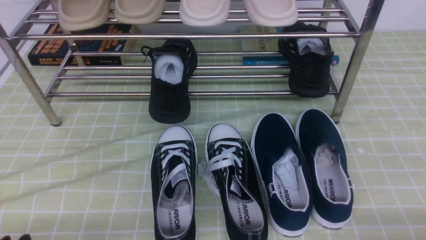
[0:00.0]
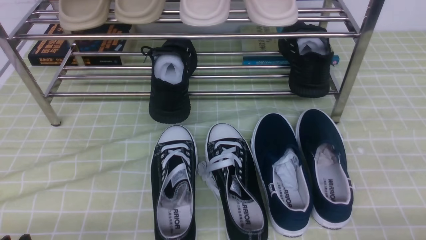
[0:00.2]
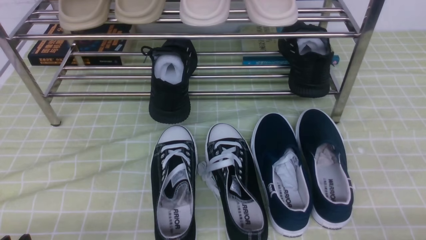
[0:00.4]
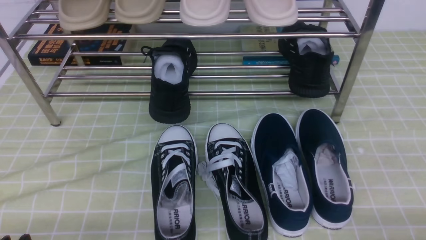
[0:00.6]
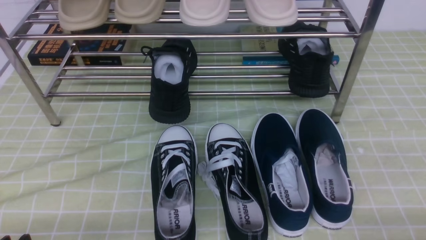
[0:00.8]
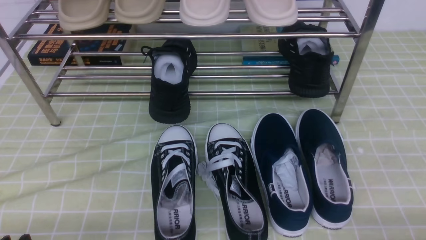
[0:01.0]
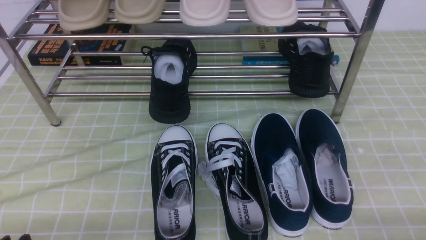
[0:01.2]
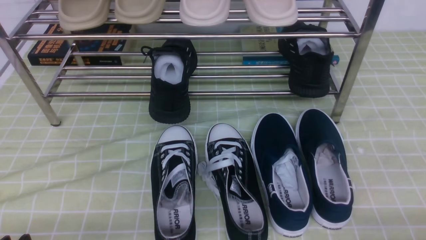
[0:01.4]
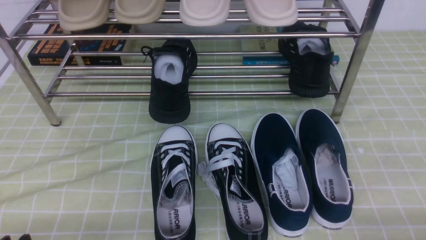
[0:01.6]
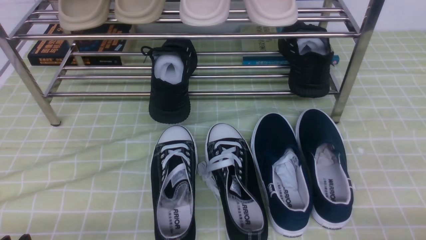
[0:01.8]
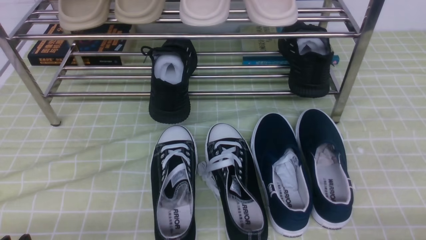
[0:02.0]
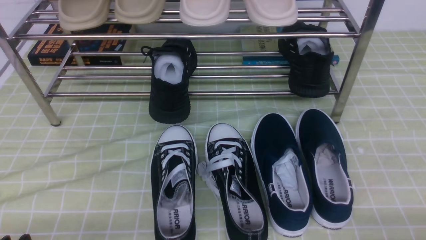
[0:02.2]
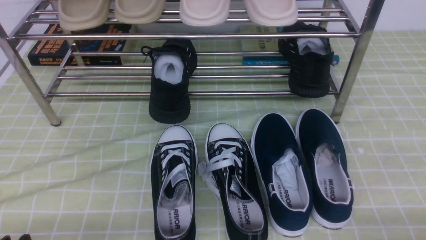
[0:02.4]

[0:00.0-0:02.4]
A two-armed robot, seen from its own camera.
0:00.0 to 0:02.4: The two grippers keep their place.

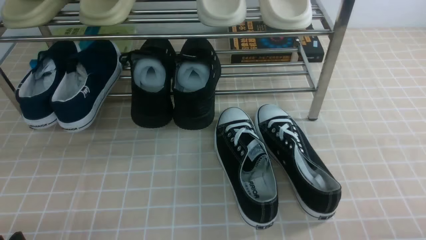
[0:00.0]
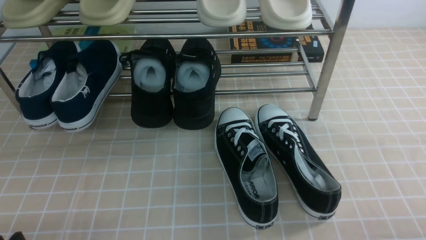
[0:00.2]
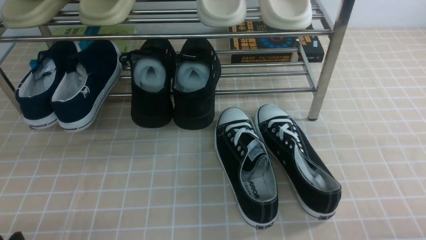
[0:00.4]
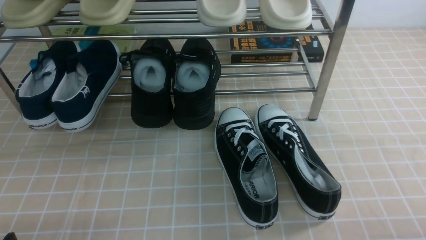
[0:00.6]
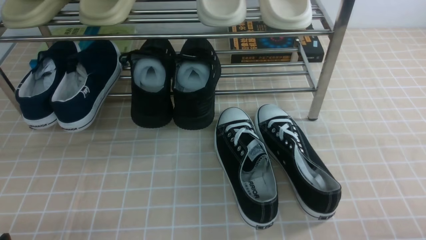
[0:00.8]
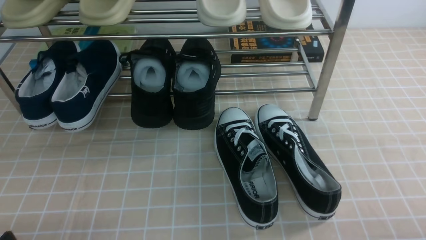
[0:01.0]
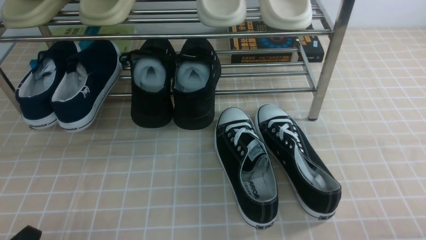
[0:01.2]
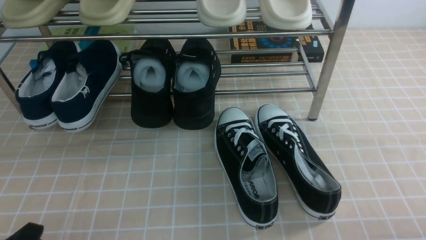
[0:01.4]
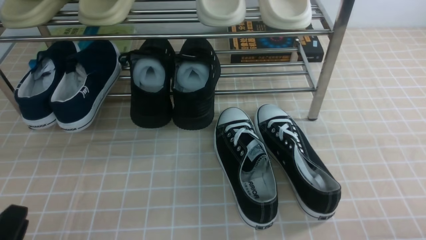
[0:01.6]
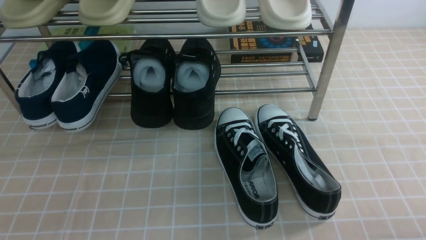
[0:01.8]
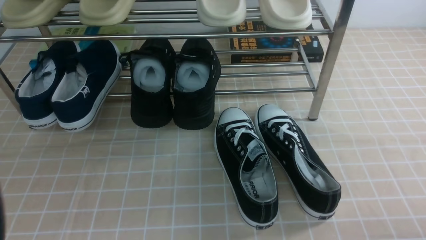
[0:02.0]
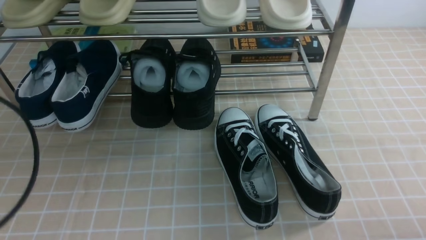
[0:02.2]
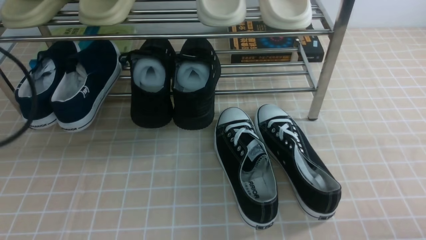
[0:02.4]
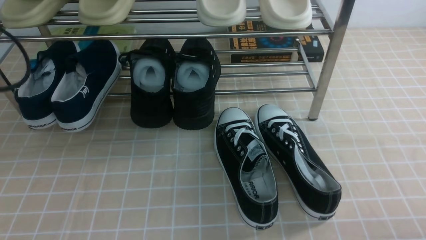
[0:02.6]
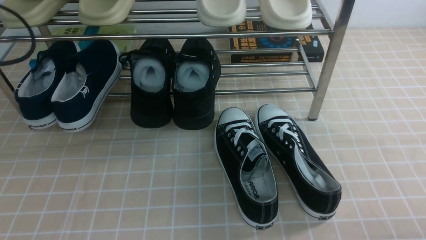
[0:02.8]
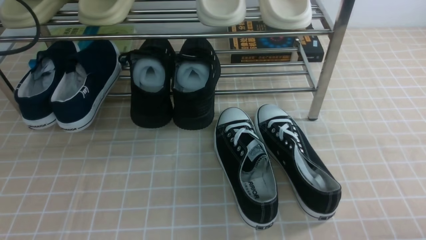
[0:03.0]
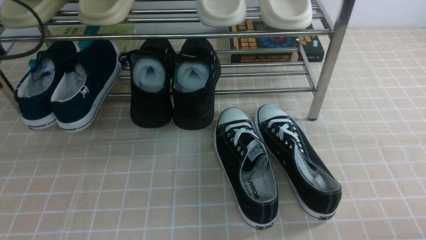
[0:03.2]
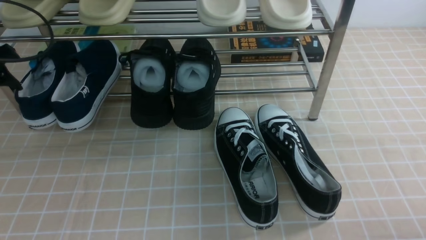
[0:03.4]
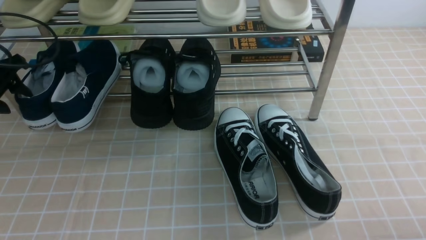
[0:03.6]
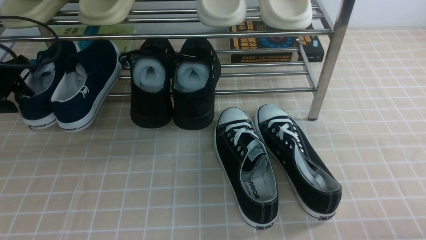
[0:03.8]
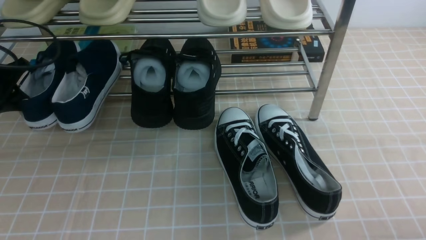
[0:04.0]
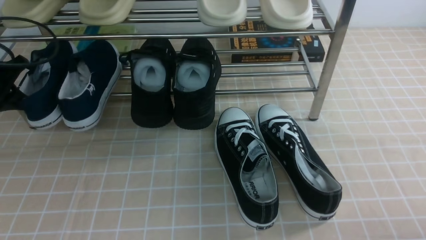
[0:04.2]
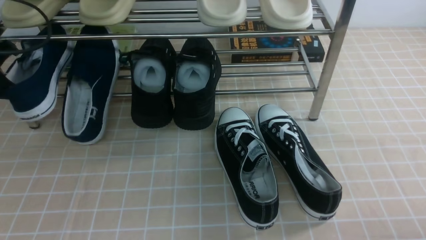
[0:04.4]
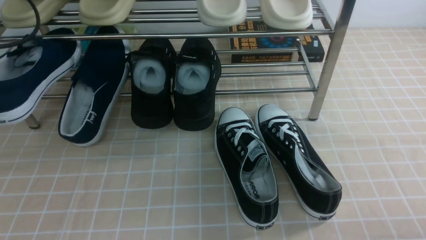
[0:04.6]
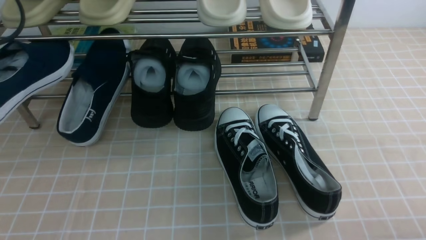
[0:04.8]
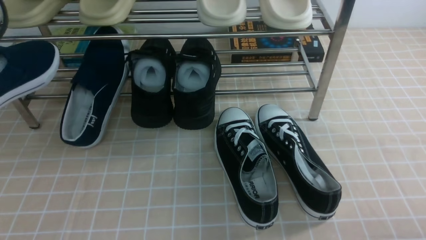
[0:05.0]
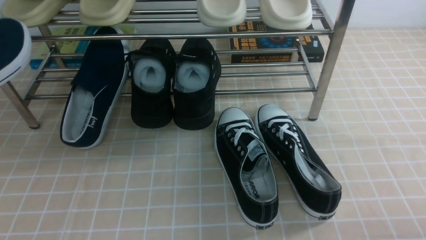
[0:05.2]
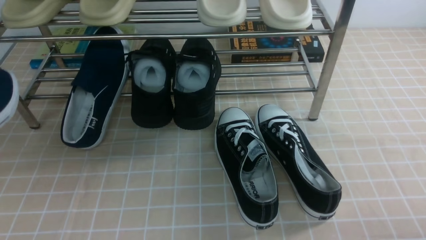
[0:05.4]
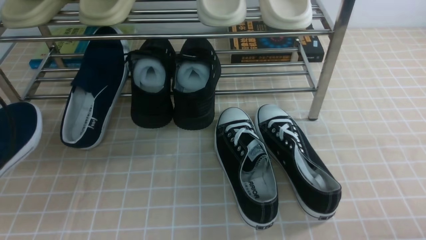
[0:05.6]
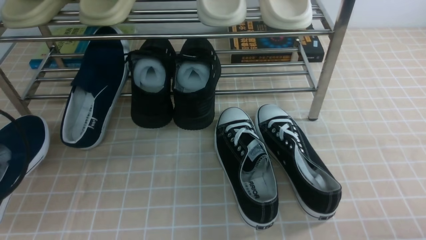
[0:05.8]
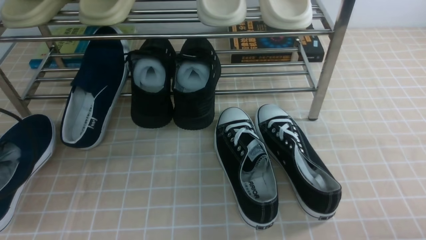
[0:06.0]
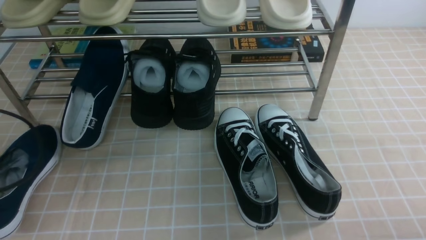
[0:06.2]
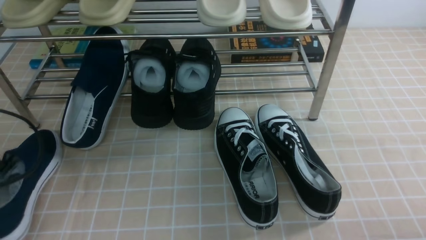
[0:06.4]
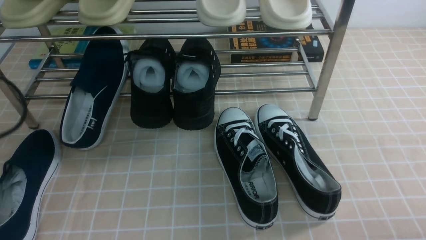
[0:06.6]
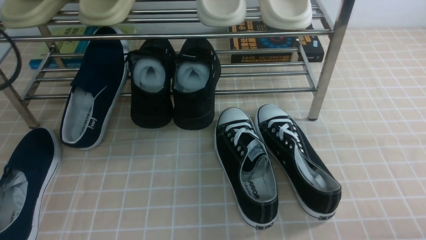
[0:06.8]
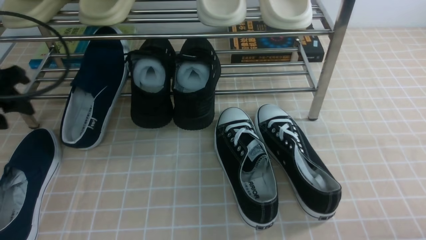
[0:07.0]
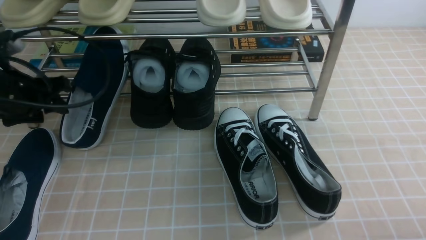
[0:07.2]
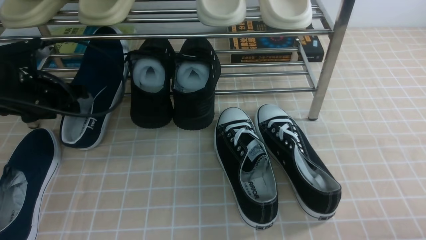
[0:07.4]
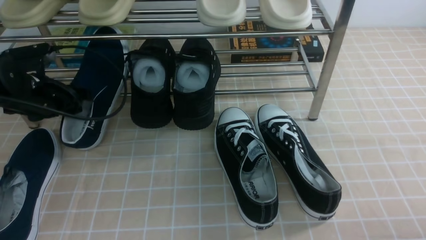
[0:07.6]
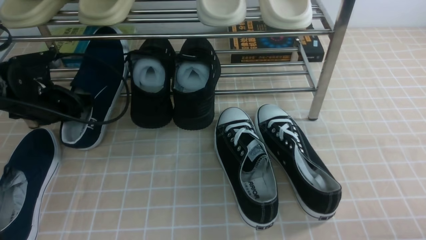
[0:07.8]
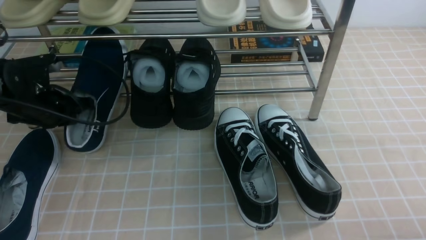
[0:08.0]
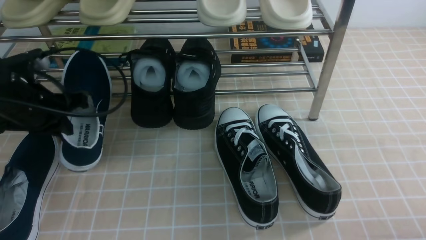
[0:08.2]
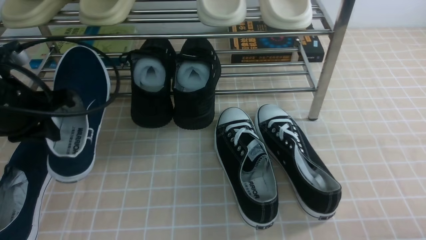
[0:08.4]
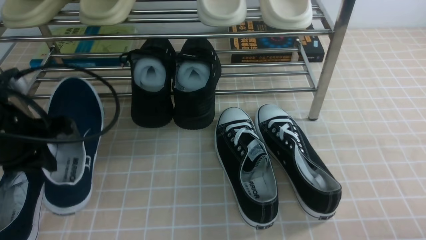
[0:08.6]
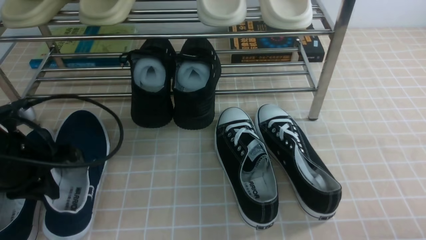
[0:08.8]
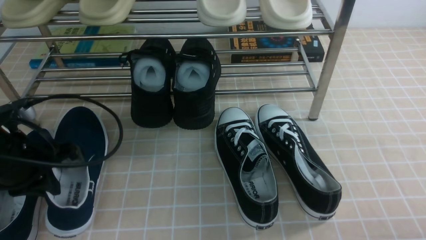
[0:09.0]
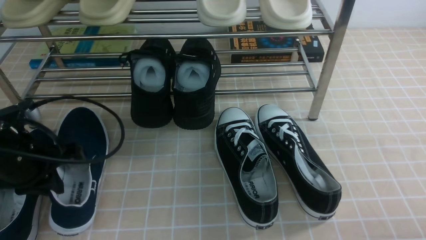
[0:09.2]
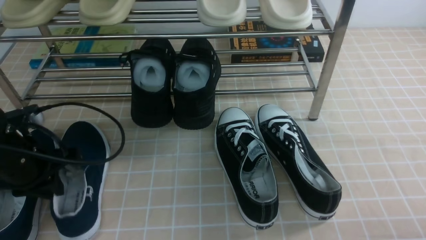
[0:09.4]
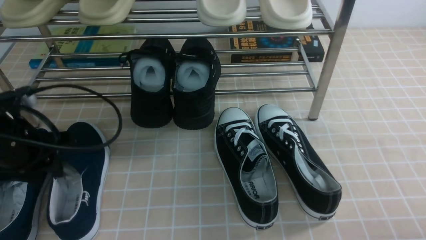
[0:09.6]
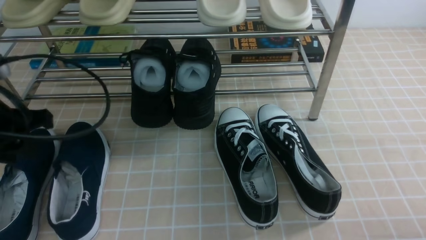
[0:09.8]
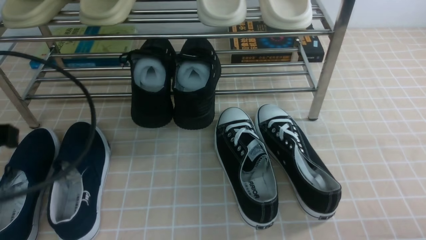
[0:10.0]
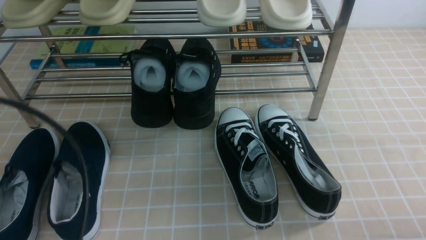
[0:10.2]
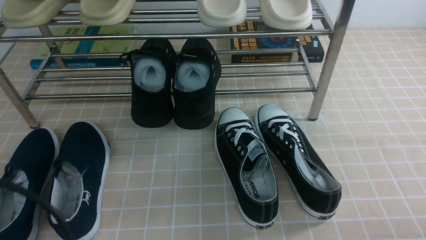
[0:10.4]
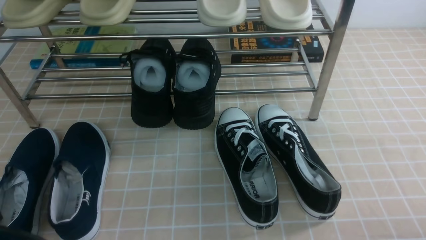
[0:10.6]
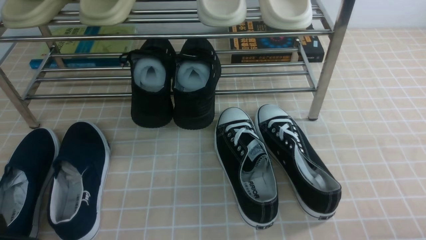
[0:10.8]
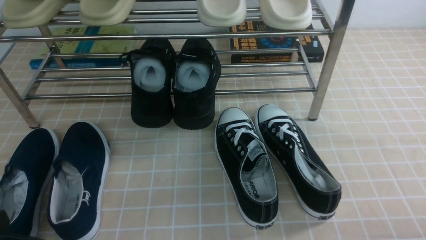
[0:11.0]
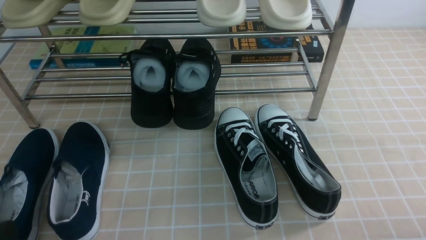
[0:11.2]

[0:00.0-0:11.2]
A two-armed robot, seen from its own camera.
Step, 0:00.0 to 0:03.8: use the left arm to clamp a shoe on the left side of the shoe rack.
Step, 0:04.2 to 0:06.4: Use your left arm to remove the clamped shoe from the shoe rack and put it down.
Step, 0:06.6 to 0:07.8: use the left arm to clamp a shoe on the left side of the shoe rack.
Step, 0:08.0 to 0:09.4: Use your left arm to remove the clamped shoe from the shoe rack and put it down.
0:01.6 to 0:03.2: The left gripper moves forward, about 30 cm, and closes and opens again.
0:03.2 to 0:04.8: The left gripper shifts roughly 10 cm backward and upward, and closes up.
0:04.8 to 0:06.4: The left gripper shifts approximately 15 cm downward and backward, and opens.
0:06.4 to 0:08.0: The left gripper moves forward and to the right, some 15 cm, and closes up.
0:08.0 to 0:09.6: The left gripper goes approximately 10 cm backward, and opens its fingers.
0:09.6 to 0:11.2: The left gripper moves backward, some 20 cm, and closes up.

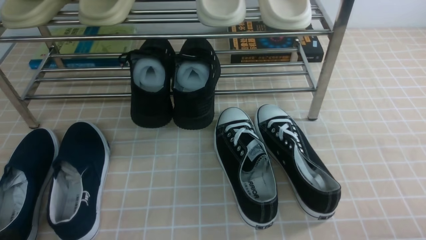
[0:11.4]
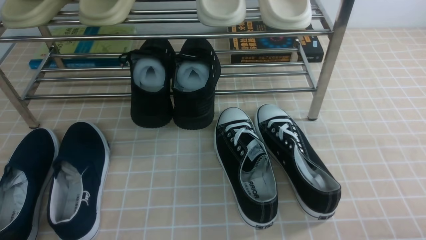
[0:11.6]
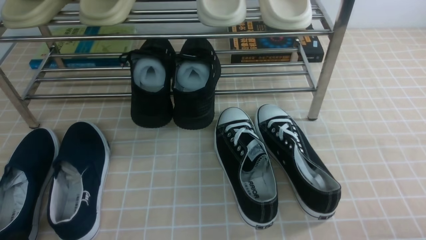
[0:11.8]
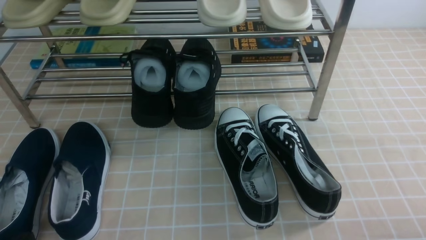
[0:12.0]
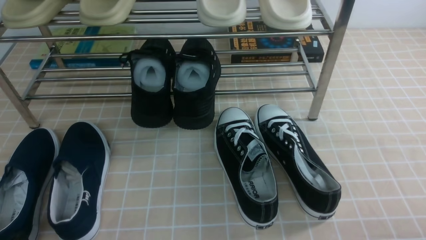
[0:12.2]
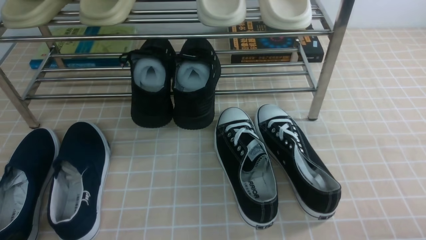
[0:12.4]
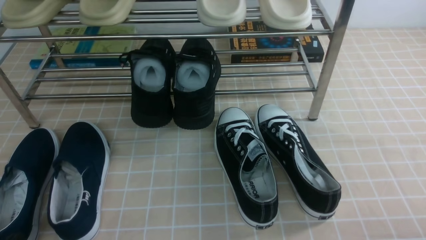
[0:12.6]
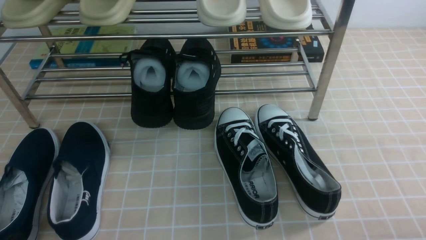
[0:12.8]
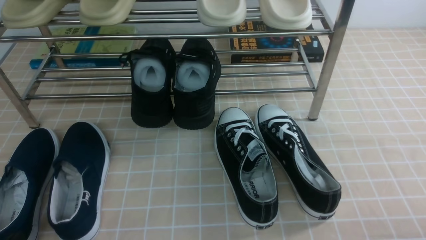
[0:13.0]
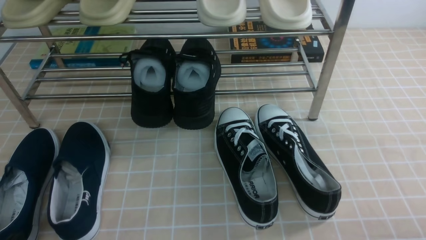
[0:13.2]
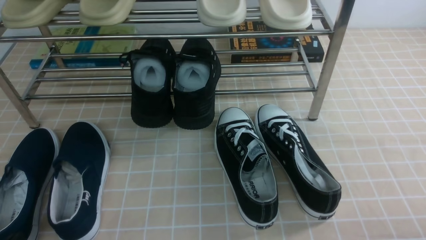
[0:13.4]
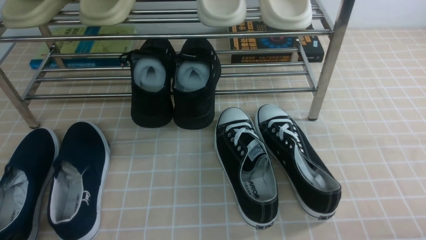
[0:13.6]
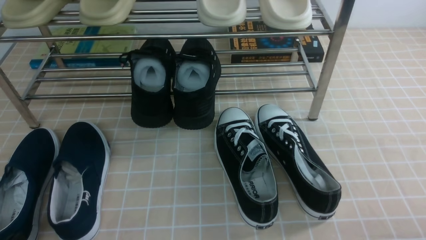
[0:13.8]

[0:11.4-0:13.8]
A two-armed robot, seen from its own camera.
0:12.6 to 0:13.8: Neither gripper changes place.
